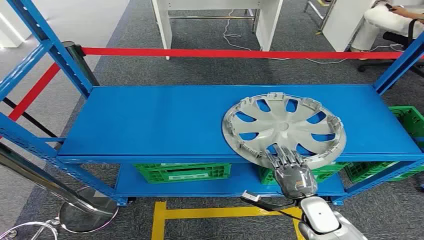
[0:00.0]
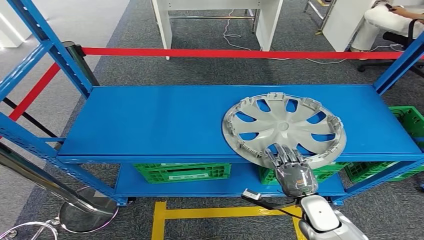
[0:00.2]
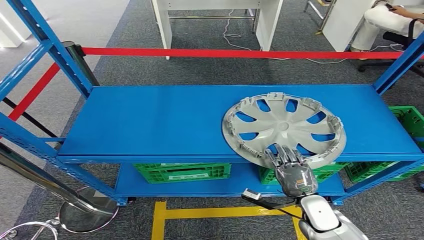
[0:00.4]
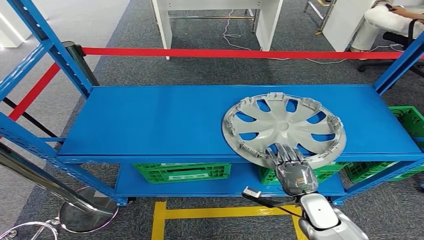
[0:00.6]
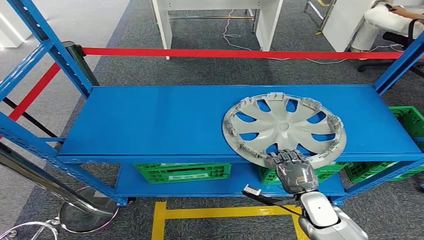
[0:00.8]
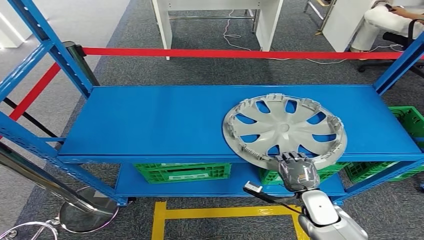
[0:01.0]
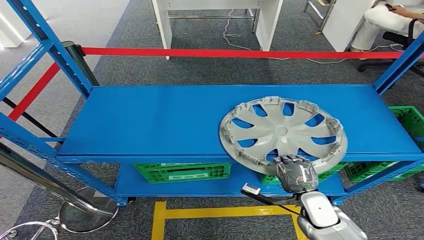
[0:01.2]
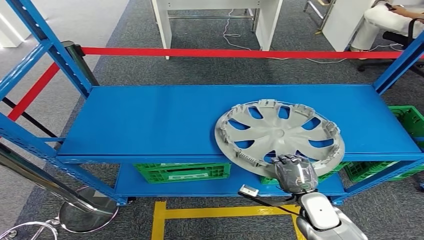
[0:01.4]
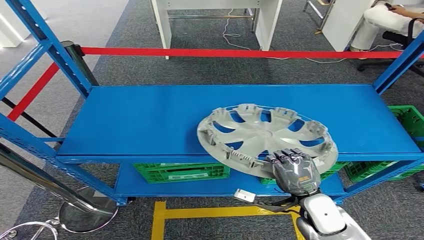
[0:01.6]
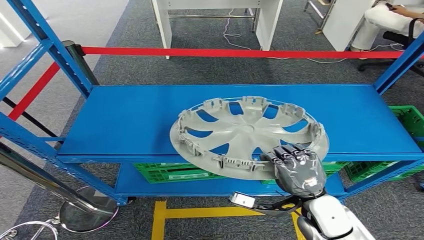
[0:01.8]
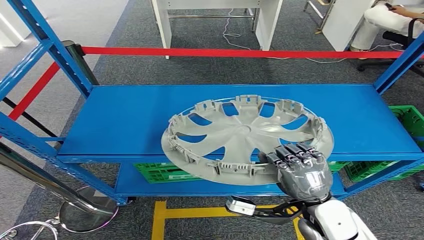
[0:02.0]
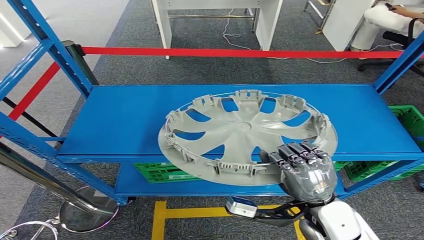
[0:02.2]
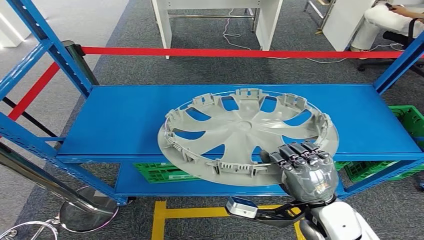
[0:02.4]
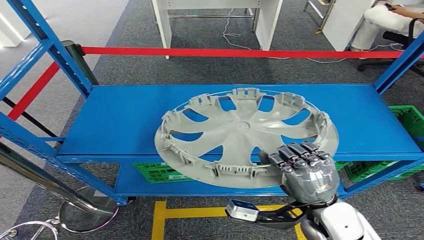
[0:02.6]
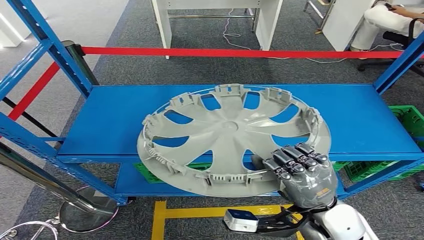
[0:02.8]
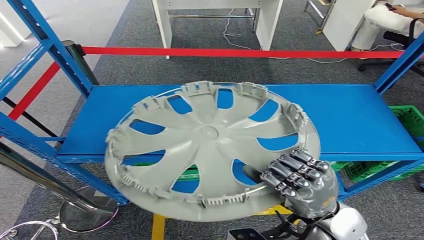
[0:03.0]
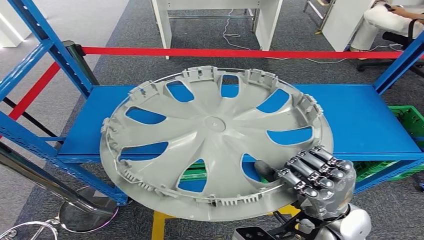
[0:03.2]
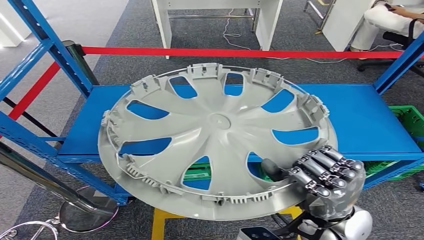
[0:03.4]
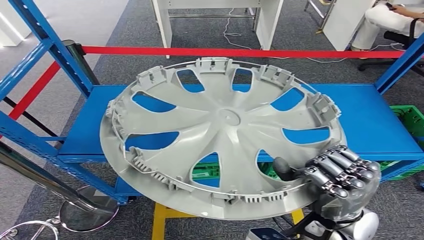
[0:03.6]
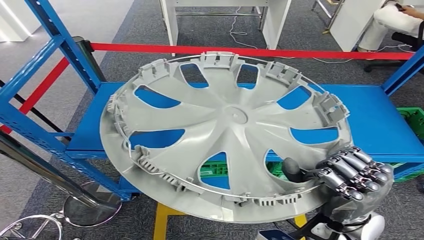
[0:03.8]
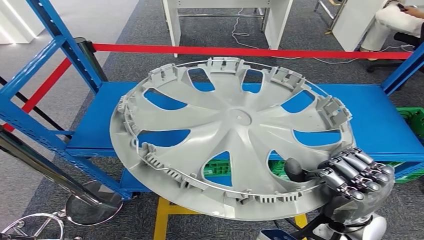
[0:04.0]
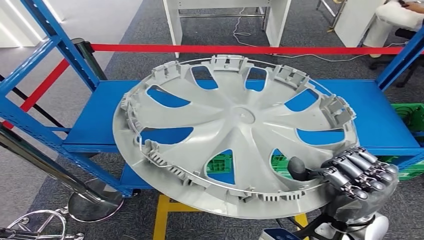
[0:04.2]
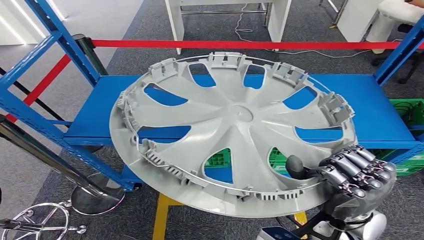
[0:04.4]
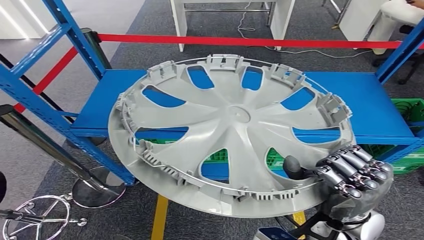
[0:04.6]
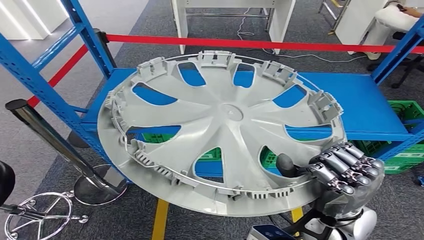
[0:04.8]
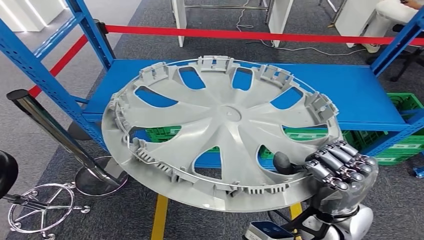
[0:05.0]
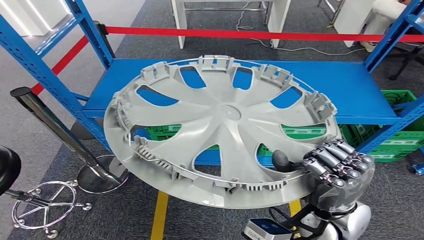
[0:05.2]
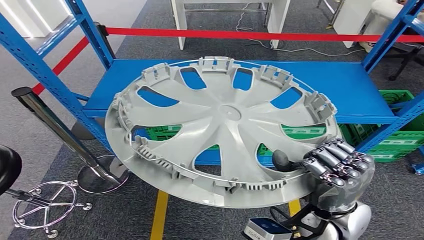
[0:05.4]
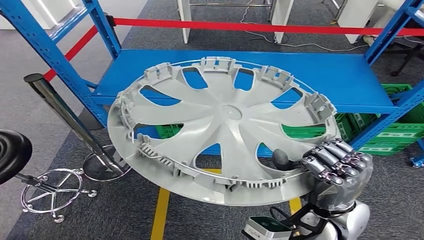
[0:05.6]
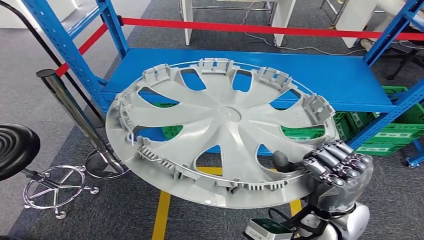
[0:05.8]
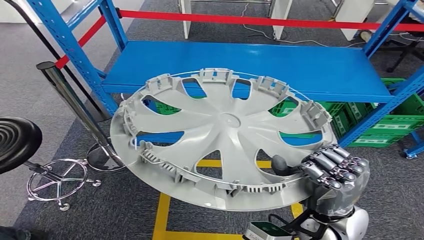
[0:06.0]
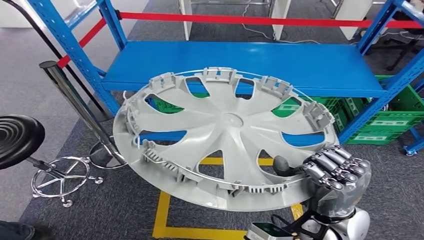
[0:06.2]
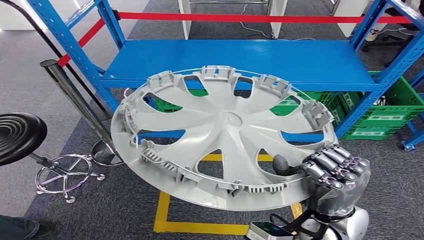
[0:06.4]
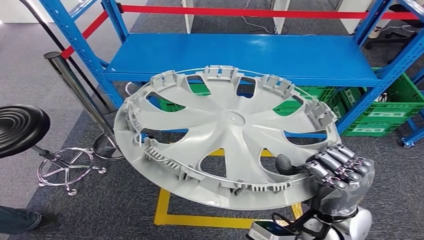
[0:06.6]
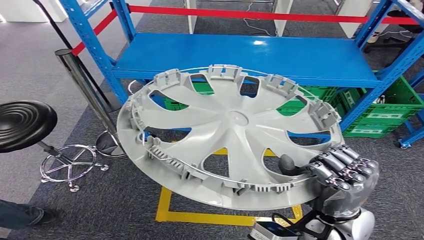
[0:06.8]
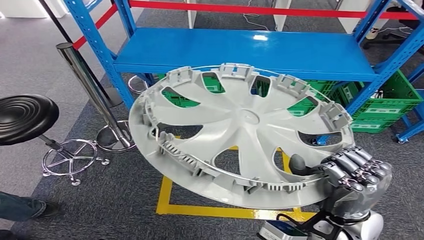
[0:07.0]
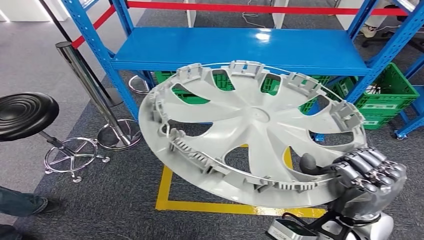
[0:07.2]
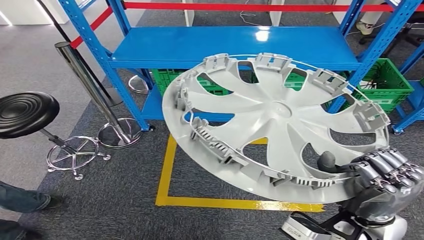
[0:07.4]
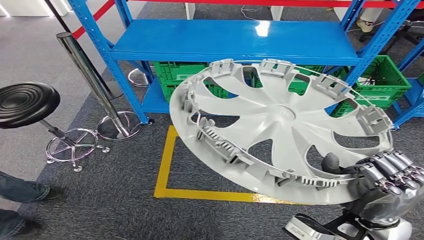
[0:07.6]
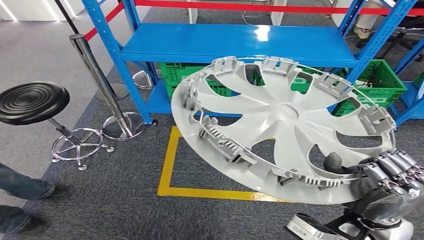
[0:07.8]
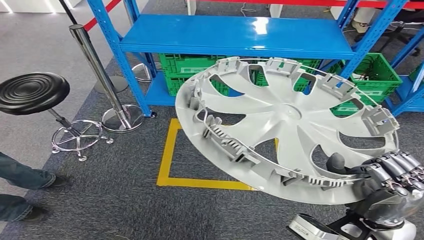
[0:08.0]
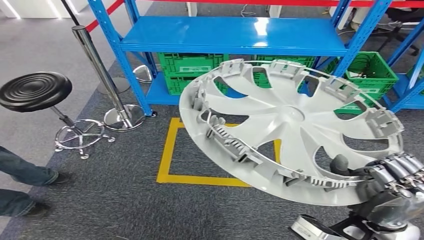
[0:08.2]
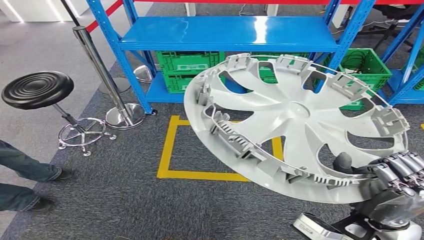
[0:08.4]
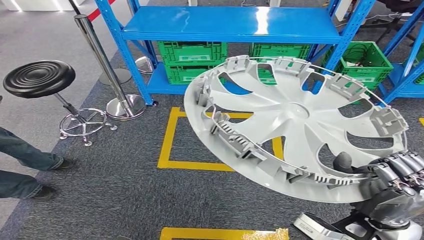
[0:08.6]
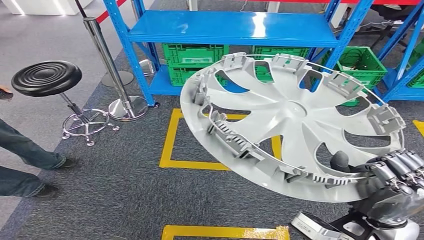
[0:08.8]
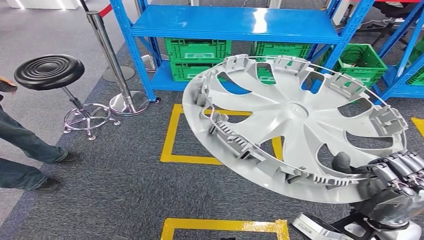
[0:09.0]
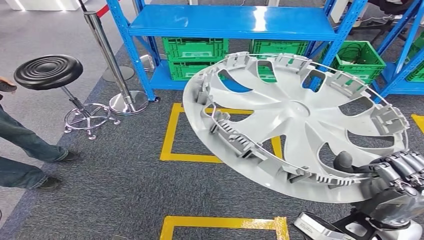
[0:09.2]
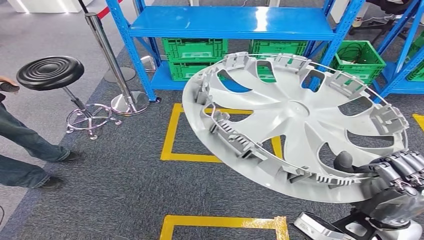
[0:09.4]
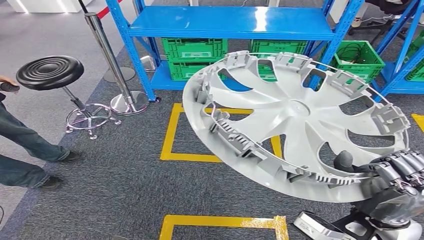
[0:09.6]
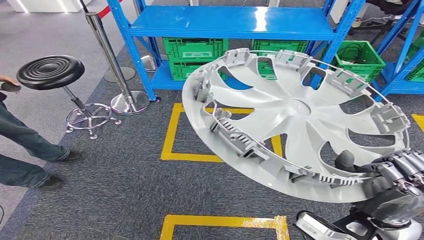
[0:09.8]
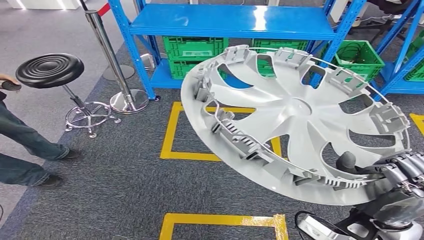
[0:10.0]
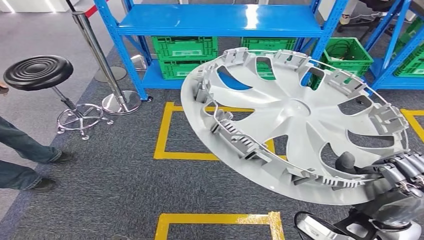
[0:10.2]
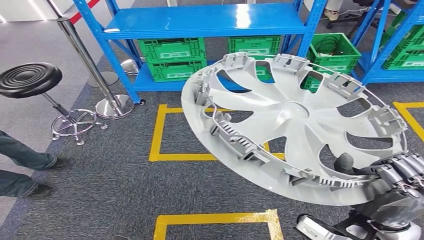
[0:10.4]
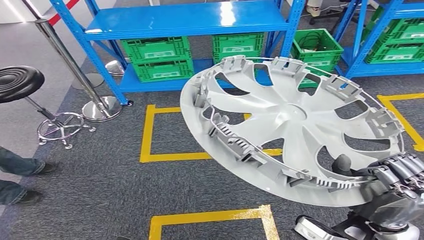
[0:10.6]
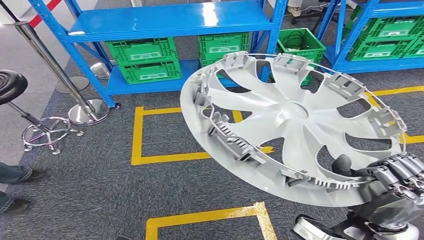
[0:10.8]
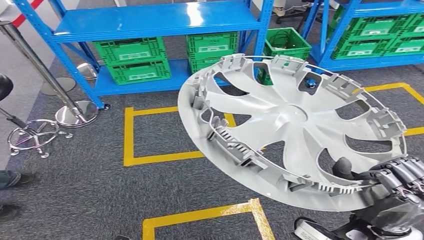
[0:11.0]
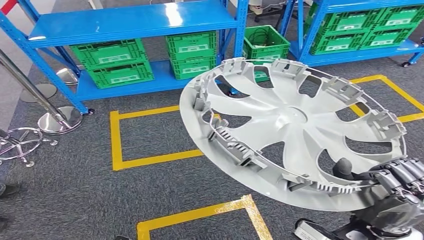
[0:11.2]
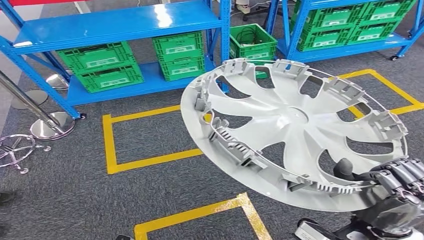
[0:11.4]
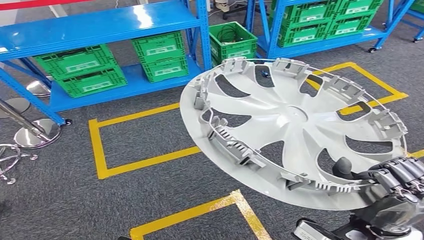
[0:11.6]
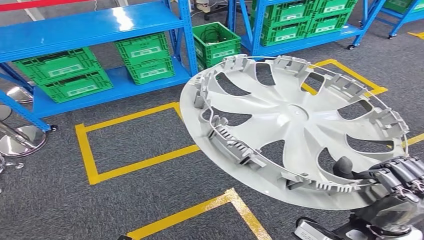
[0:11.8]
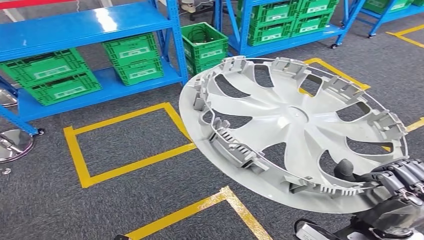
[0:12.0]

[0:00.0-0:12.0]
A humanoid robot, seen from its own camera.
Step, 0:00.0 to 0:03.2: Pick up the small component from the shelf.

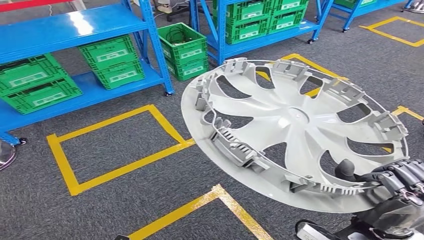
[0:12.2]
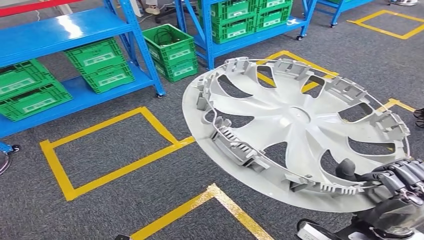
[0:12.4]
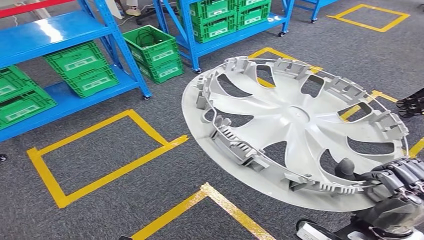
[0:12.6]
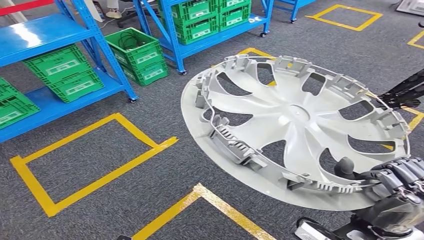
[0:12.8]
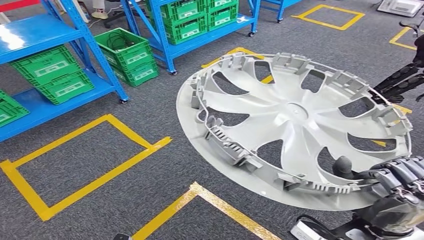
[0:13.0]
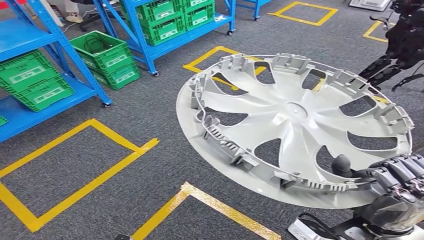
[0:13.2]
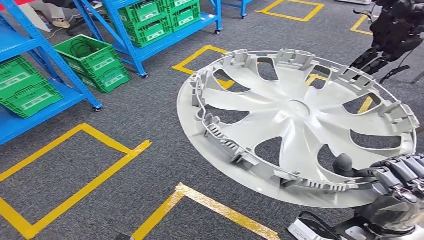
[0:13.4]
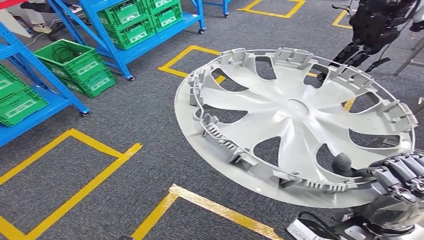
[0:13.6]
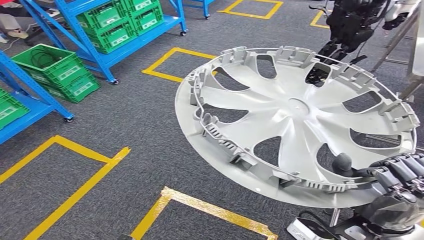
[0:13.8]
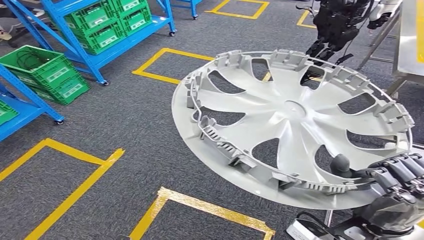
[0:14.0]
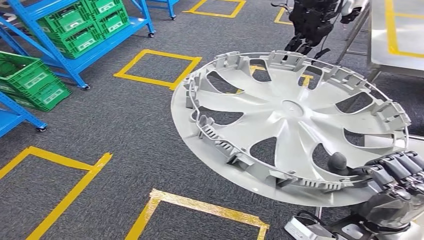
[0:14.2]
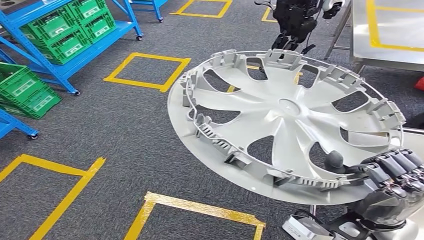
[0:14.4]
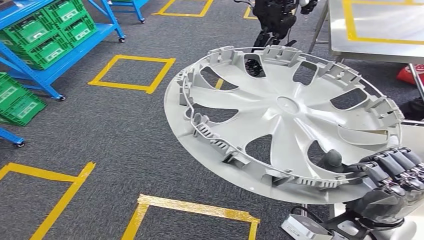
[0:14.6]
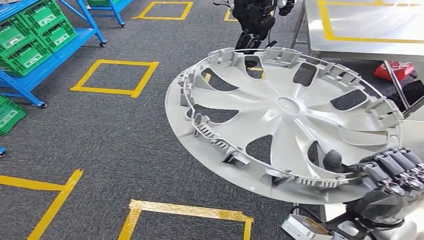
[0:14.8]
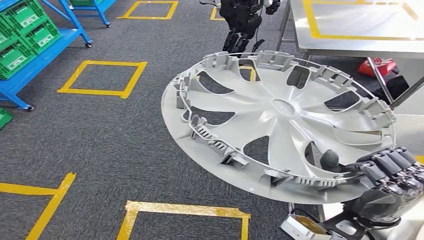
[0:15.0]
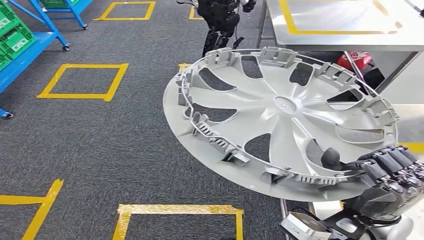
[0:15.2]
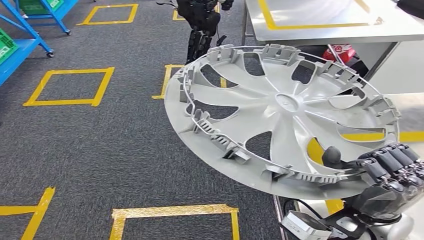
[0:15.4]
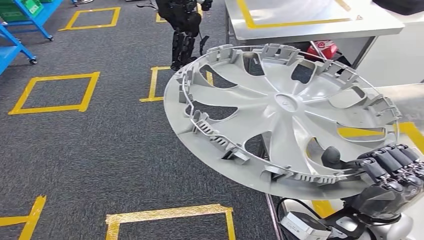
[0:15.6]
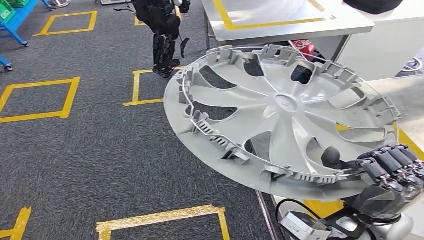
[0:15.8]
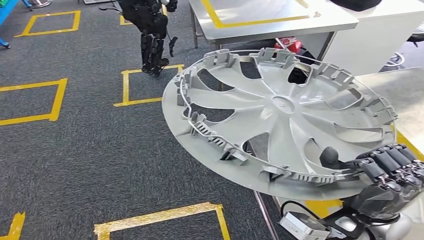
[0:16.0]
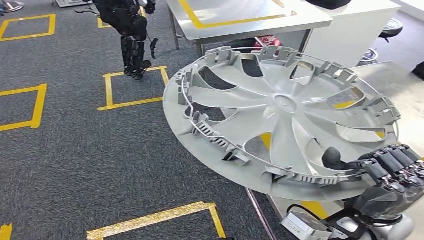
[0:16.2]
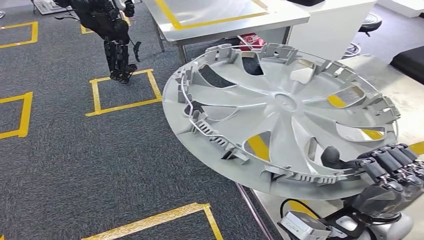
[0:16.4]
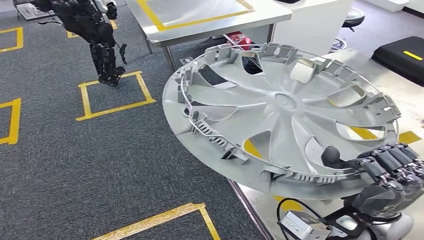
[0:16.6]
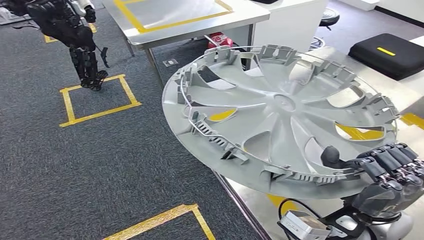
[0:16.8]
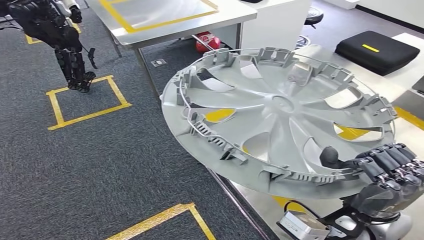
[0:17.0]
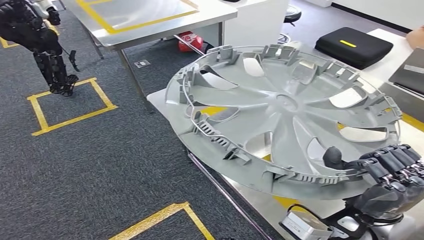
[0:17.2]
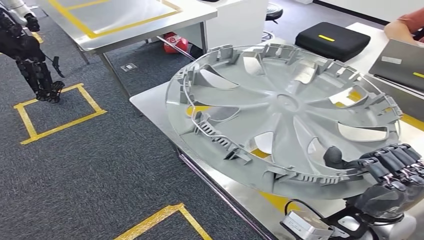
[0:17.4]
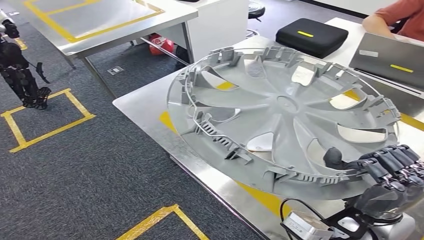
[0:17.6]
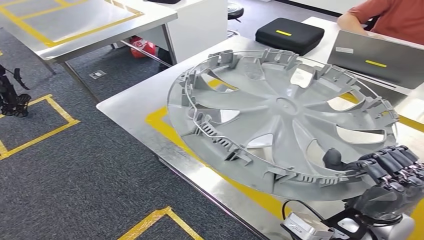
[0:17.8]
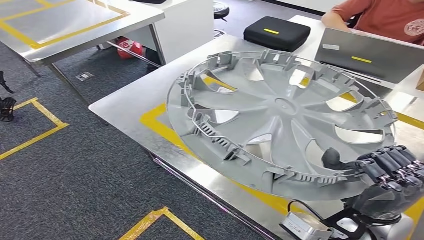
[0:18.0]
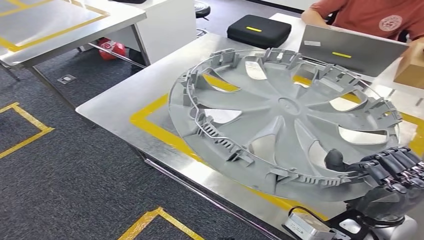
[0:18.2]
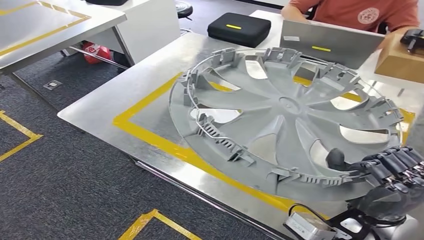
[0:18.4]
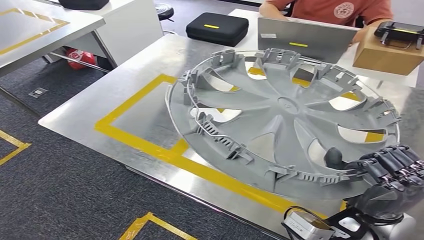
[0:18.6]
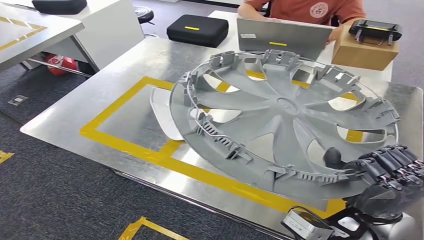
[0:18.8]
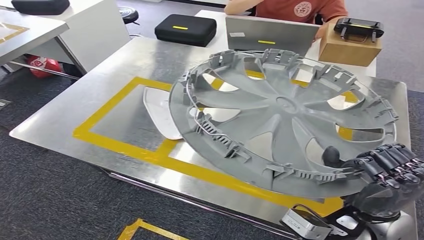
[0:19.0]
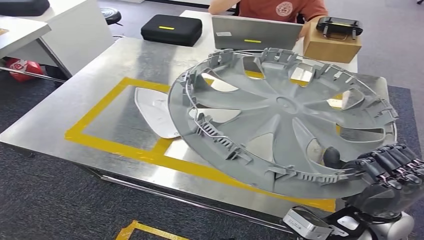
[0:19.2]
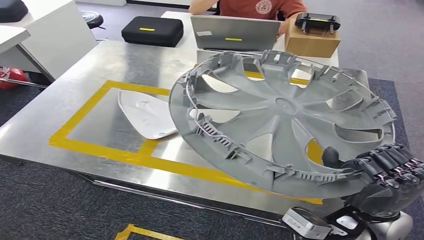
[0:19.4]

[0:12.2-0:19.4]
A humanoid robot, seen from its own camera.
Step, 0:12.2 to 0:17.6: Move the small component to the workbench.
